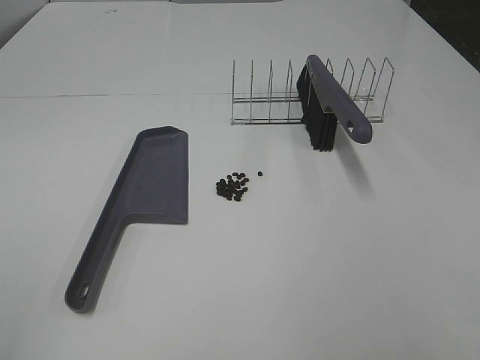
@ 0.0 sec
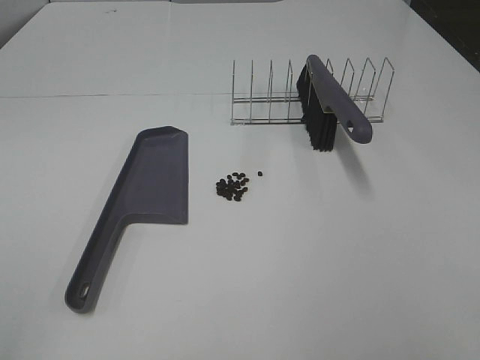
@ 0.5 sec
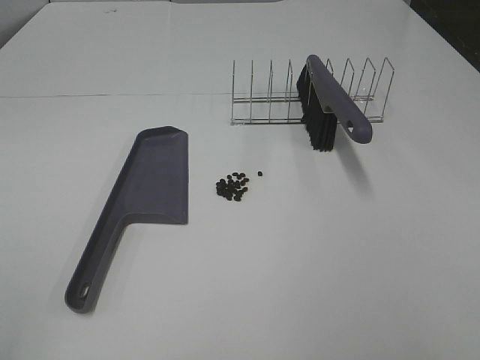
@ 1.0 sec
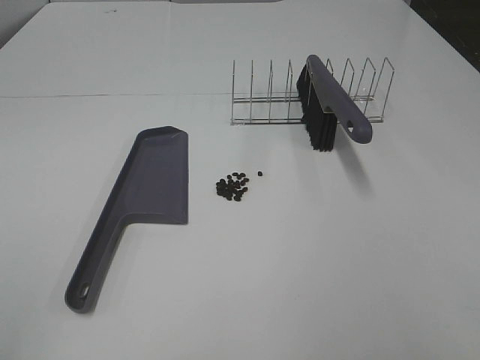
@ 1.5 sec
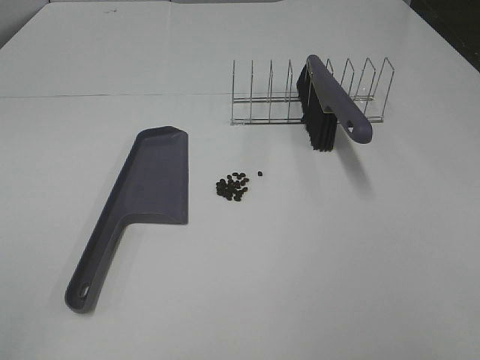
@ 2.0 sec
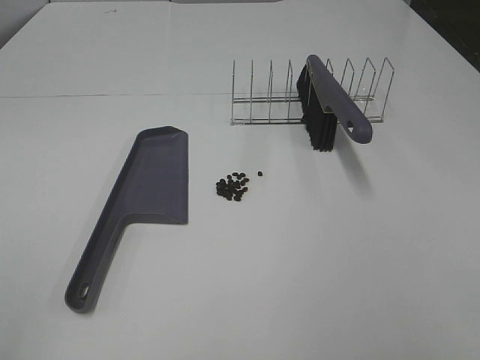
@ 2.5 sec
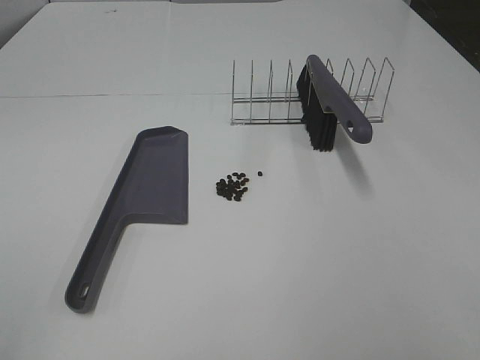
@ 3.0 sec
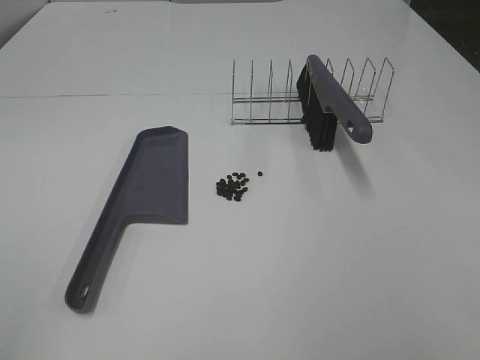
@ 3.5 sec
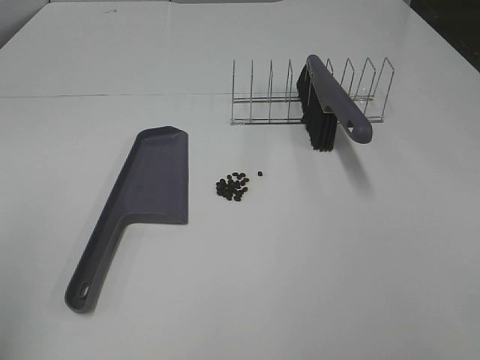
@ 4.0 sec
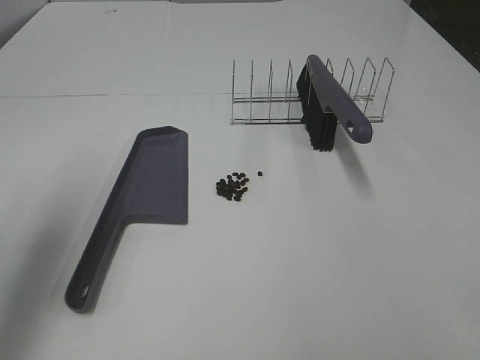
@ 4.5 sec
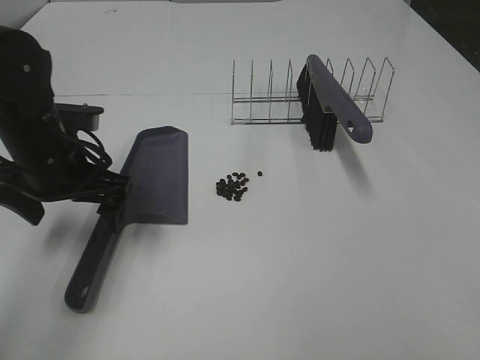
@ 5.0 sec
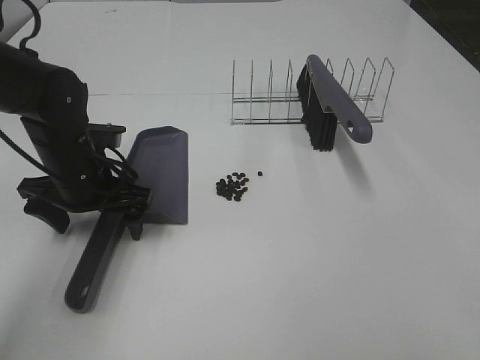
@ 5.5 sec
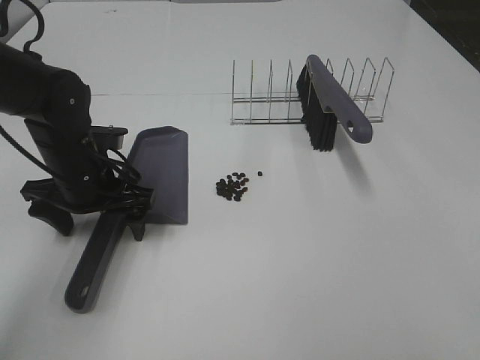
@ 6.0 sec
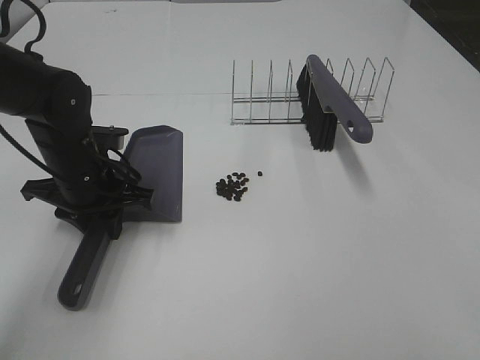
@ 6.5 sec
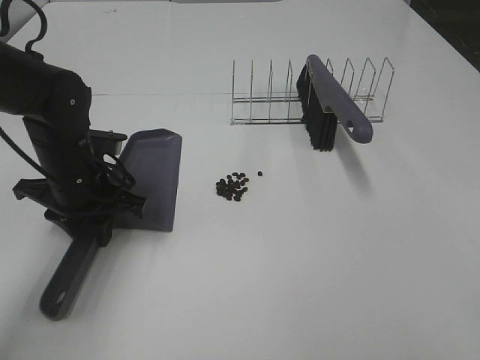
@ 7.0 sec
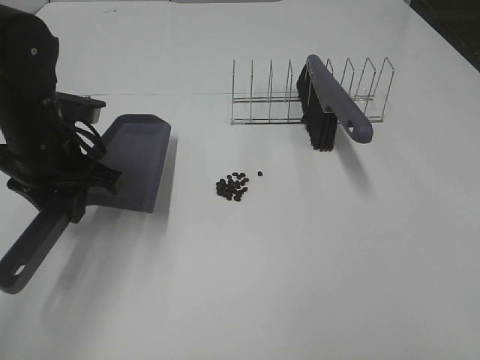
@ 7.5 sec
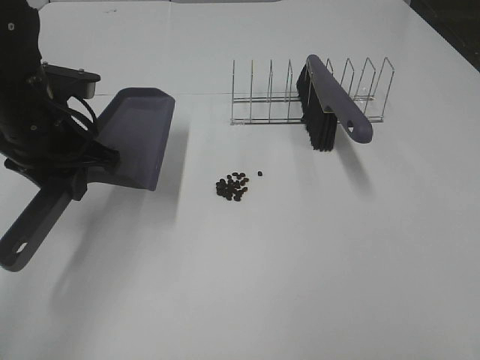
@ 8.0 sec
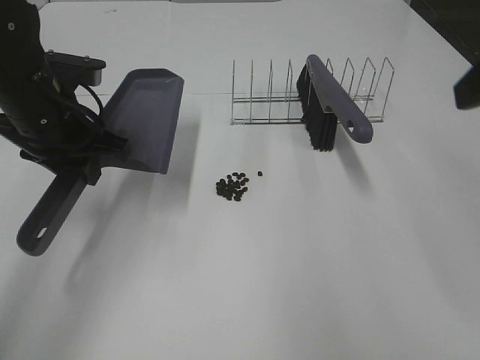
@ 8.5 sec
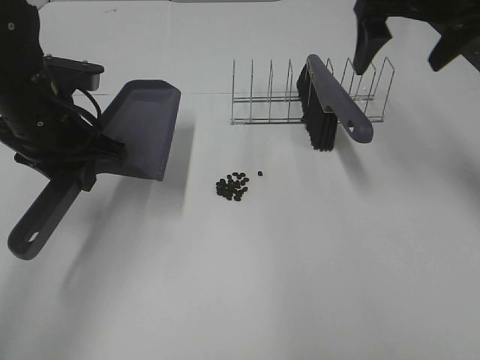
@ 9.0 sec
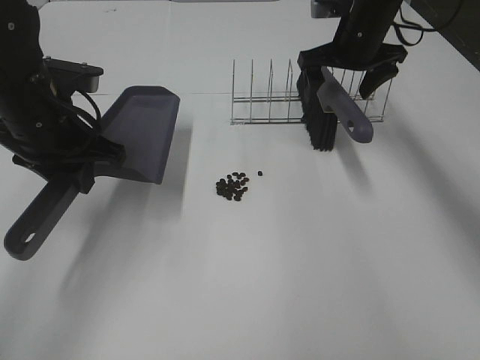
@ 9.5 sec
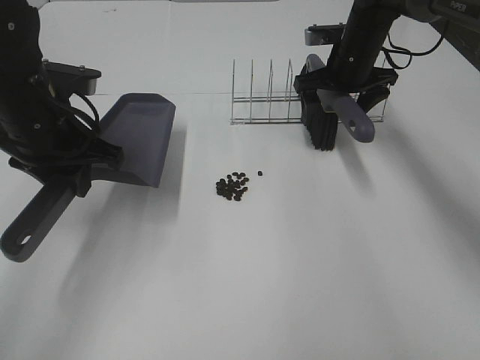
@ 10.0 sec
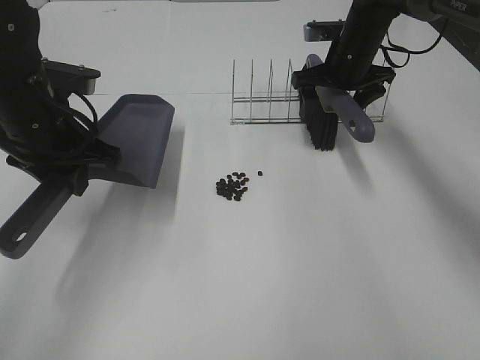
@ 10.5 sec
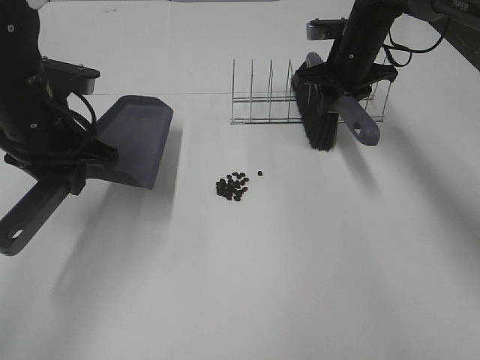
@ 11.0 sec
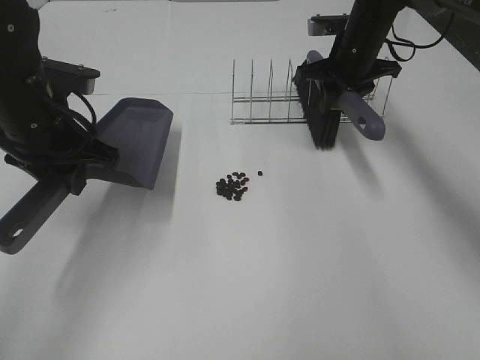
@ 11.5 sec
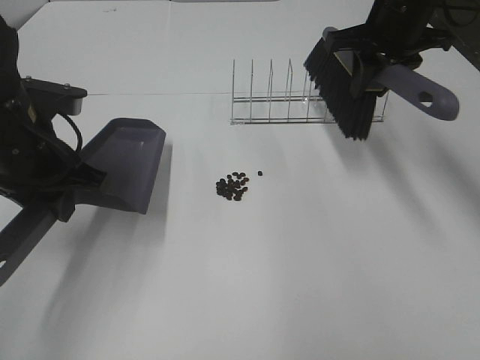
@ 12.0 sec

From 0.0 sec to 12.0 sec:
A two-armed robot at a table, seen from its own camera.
Task of the whole recording: Sweep Coffee Bean.
Step, from 0.0 sec to 6.0 sec: Left hand: grab the dustpan.
Step, from 8.0 sec to 11.0 sec: Right hand:grab the broom.
From 0.0 sec to 2.0 sec: Neither gripper changes place.
From 4.0 sec to 6.0 sec: The left gripper moves forward, downward and to the right, roughly 35 cm.
From 6.0 sec to 8.0 sec: The left gripper moves upward, roughly 10 cm, and closes its fingers.
From 8.0 sec to 10.0 sec: The right gripper moves forward, approximately 50 cm.
From 10.0 sec to 12.0 sec: The right gripper heads upward and backward, covering some 15 cm, and closes up.

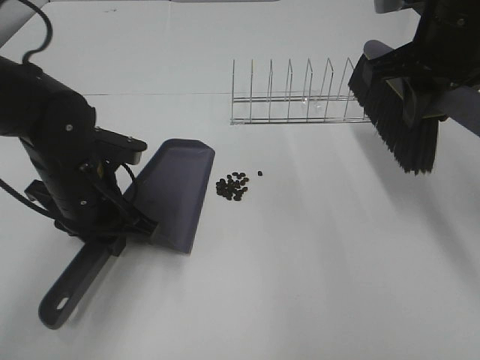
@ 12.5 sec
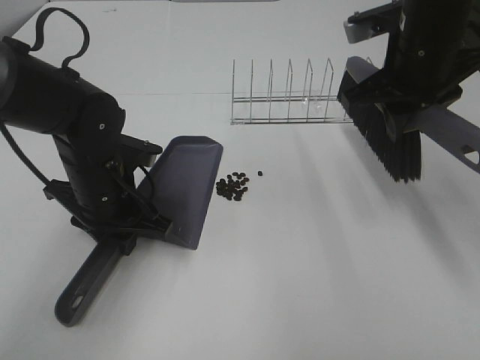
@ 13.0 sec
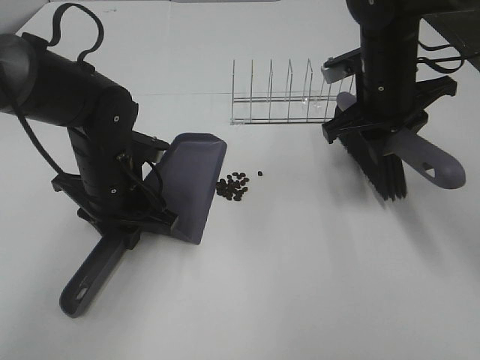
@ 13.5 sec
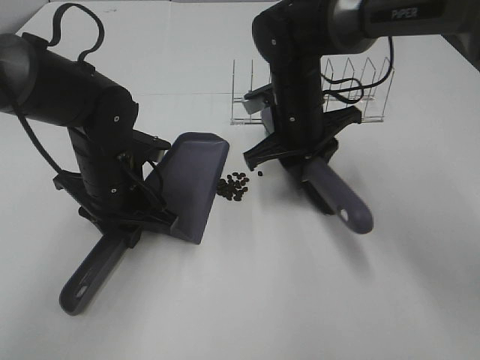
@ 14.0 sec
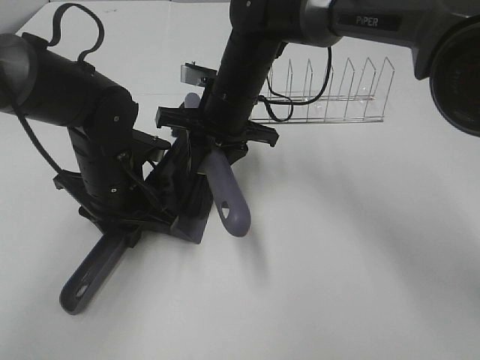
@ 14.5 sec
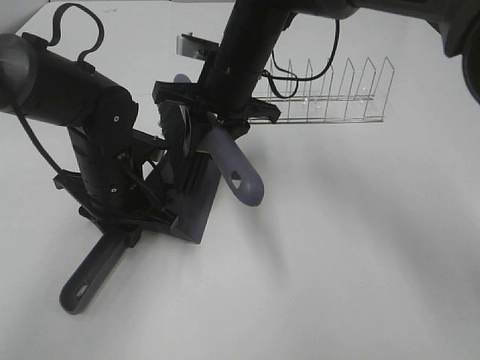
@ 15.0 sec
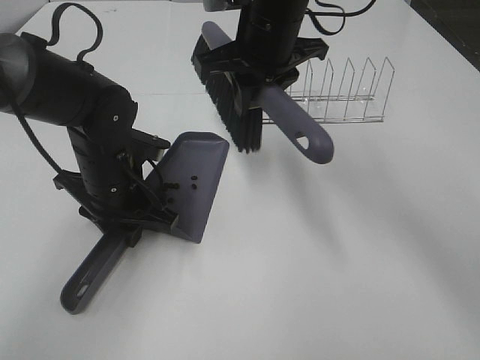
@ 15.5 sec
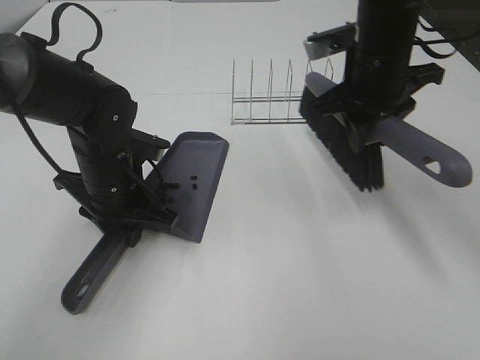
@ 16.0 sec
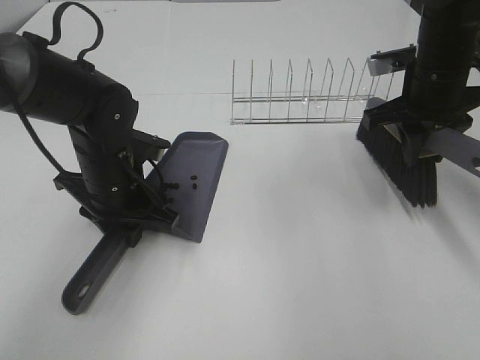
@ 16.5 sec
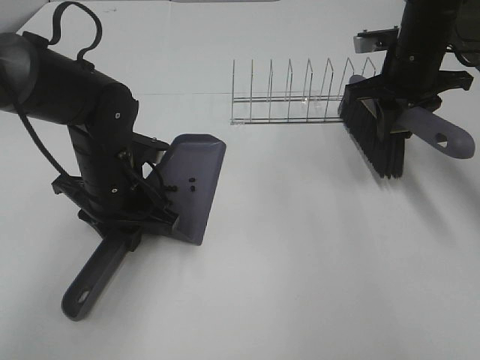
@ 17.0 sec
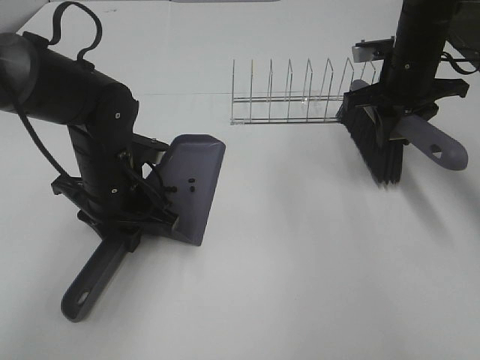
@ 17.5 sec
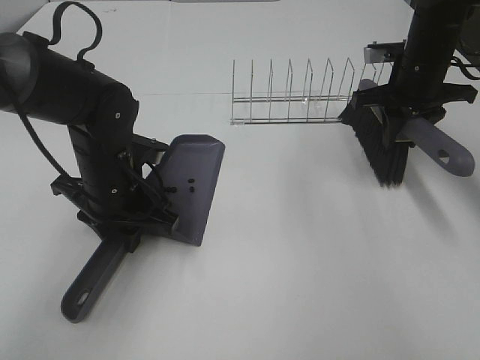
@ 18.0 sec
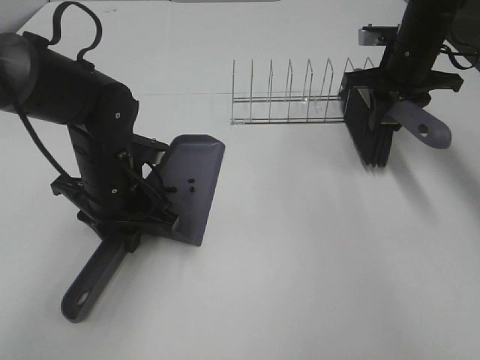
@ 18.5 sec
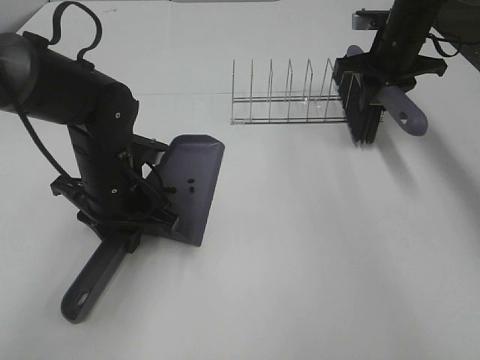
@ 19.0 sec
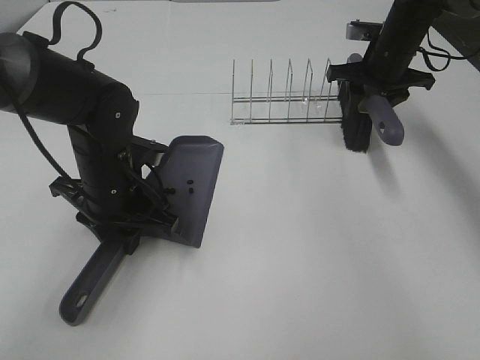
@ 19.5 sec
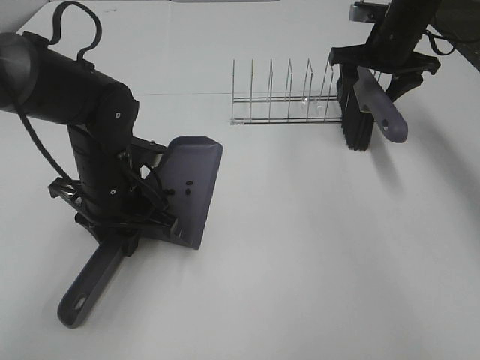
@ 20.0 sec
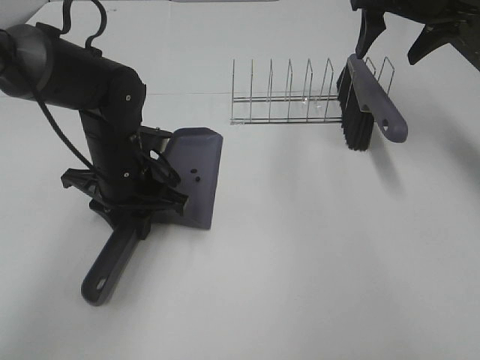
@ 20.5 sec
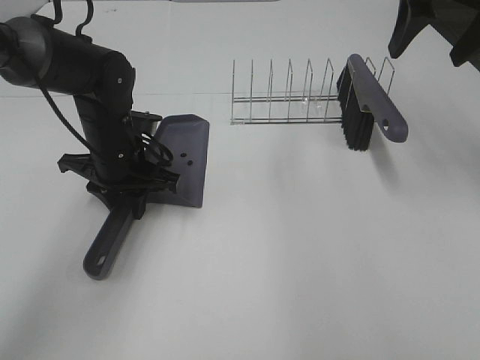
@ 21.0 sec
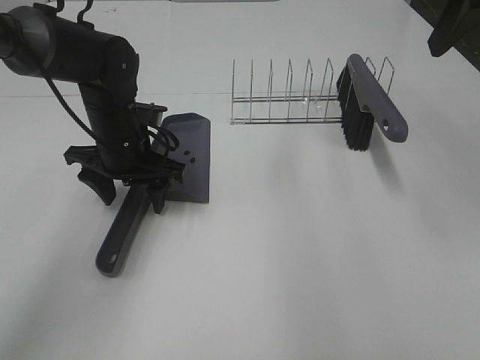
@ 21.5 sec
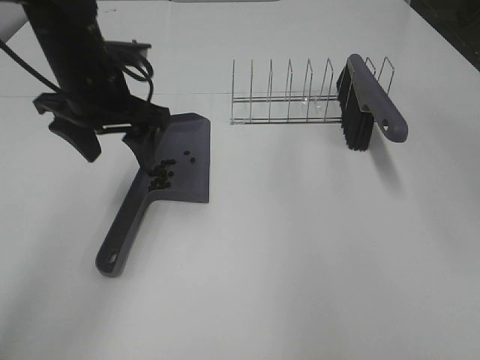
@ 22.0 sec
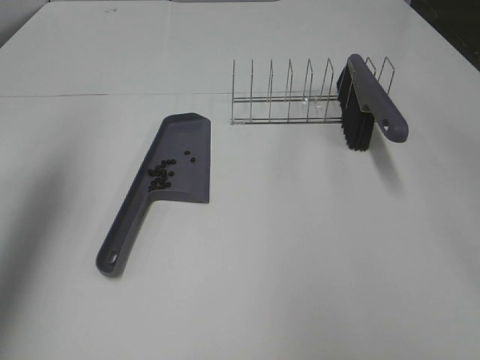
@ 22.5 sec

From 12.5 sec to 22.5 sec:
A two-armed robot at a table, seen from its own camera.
Task of the whole recording: Sweep Coffee Bean.
Step, from 12.5 sec to 15.0 sec: Right hand:sweep the coffee beans into the dustpan.
Step, from 15.5 sec to 19.5 sec: Right hand:place the broom on the rack.
Step, from 20.0 sec to 21.0 sec: Left hand:place the dustpan on the table.
From 12.5 sec to 14.5 sec: The right gripper shifts roughly 25 cm to the left and downward.
From 14.5 sec to 16.5 sec: The right gripper heads to the right, covering about 25 cm.
From 16.5 sec to 18.5 sec: The right gripper travels forward by approximately 10 cm.
From 18.5 sec to 20.5 sec: The right gripper heads upward, covering about 10 cm, and opens its fingers.
From 20.5 sec to 22.5 sec: The right gripper travels backward and upward by roughly 30 cm. Meanwhile the left gripper is displaced upward and to the left by roughly 30 cm, and opens.

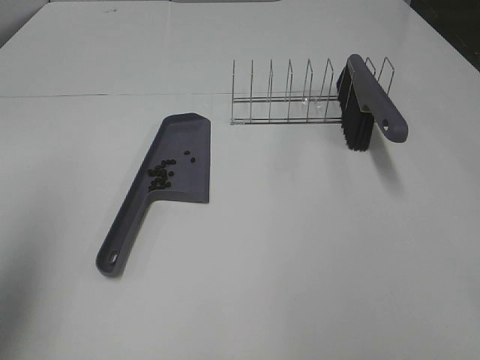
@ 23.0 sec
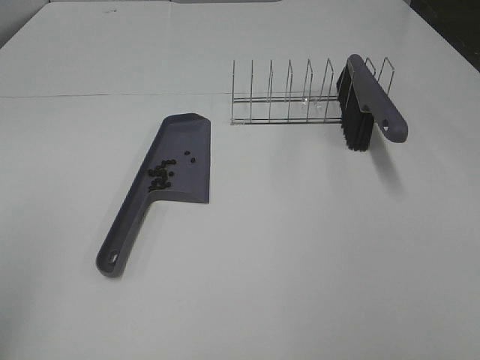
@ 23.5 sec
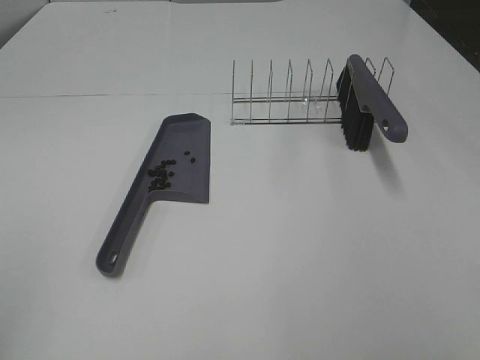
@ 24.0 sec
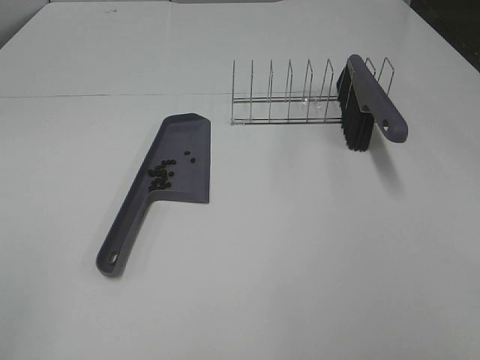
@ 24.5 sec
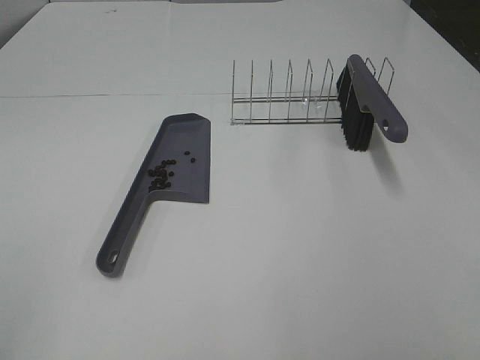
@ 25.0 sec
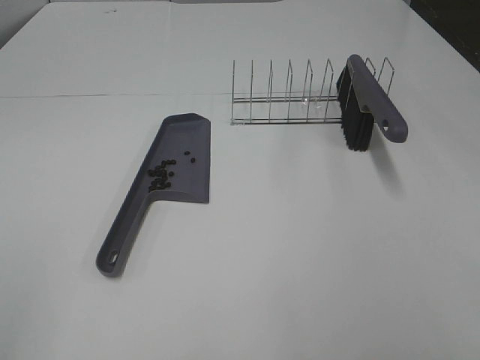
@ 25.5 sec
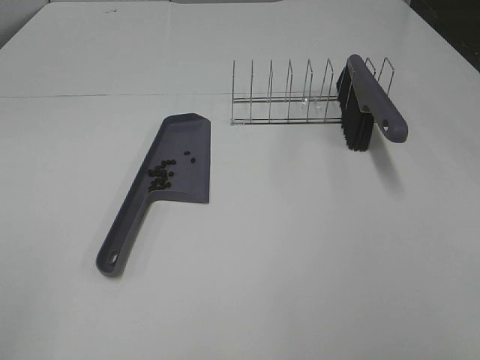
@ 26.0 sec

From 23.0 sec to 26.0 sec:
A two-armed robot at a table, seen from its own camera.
Task of the whole recording: Sweep Coffee Bean.
From 23.0 sec to 24.5 sec: The left gripper is displaced backward by approximately 15 cm.
From 24.5 sec to 26.0 sec: Neither gripper changes place.
